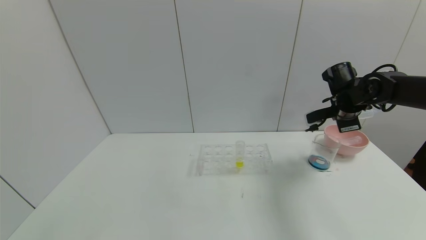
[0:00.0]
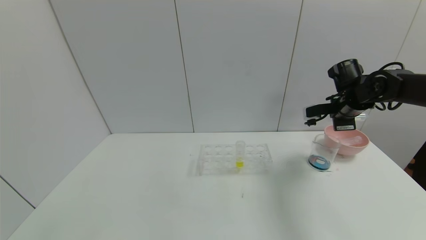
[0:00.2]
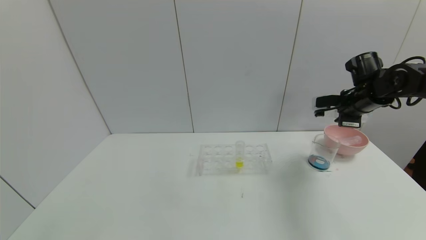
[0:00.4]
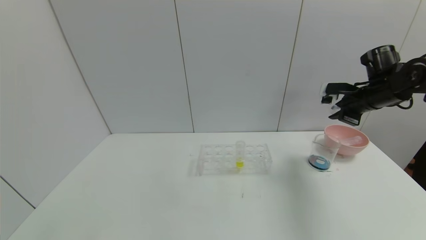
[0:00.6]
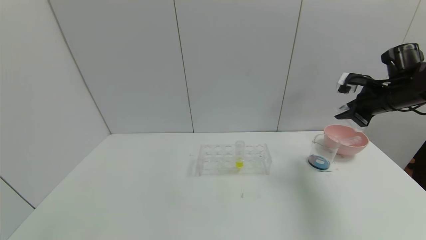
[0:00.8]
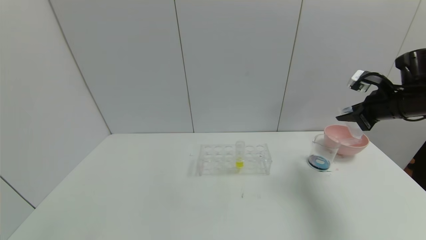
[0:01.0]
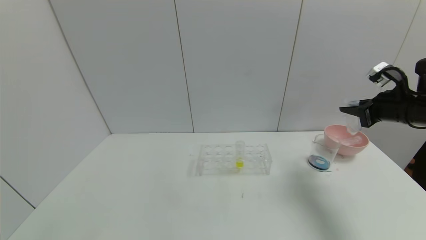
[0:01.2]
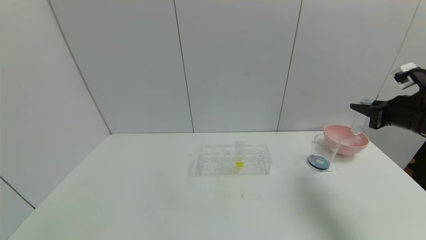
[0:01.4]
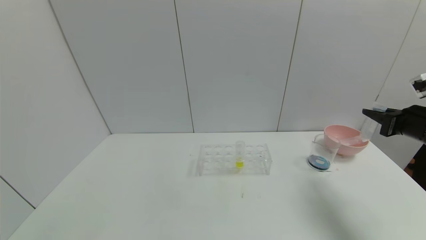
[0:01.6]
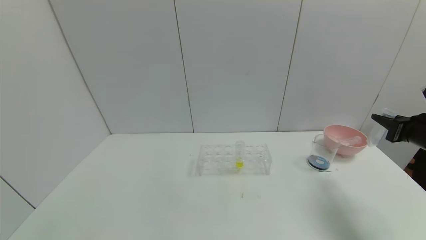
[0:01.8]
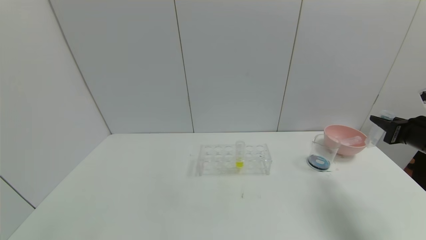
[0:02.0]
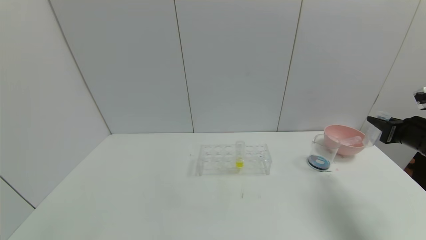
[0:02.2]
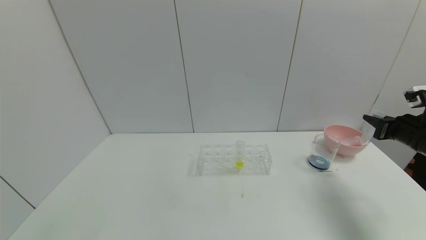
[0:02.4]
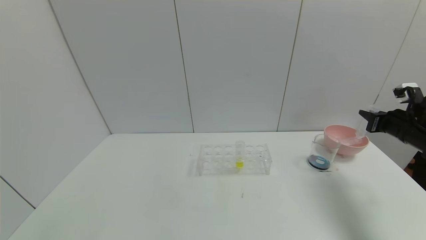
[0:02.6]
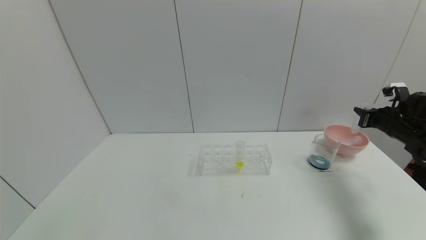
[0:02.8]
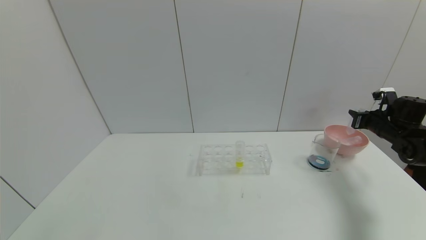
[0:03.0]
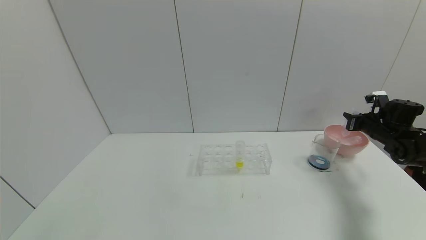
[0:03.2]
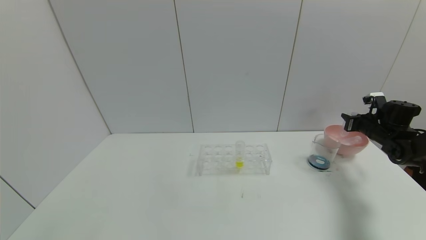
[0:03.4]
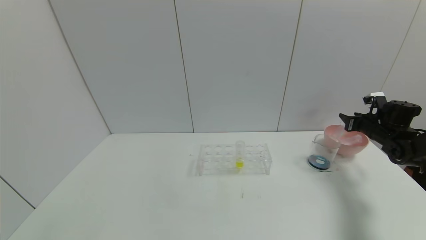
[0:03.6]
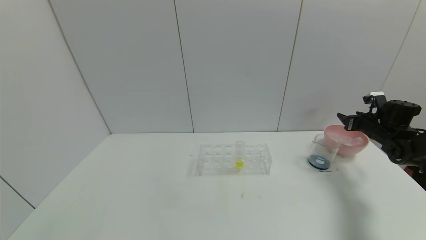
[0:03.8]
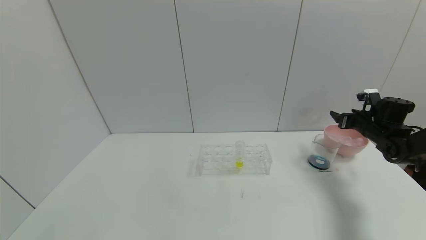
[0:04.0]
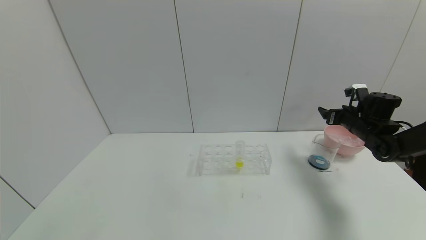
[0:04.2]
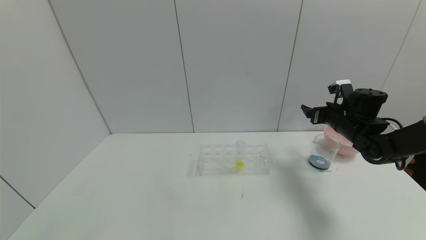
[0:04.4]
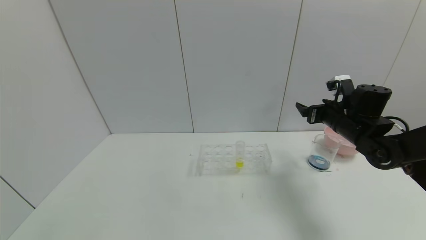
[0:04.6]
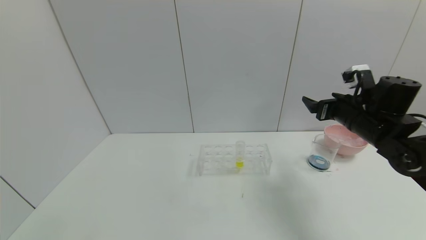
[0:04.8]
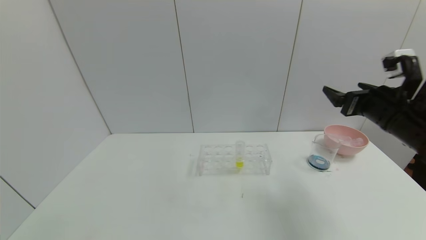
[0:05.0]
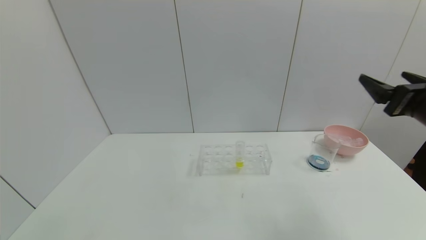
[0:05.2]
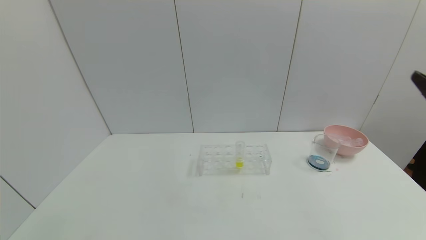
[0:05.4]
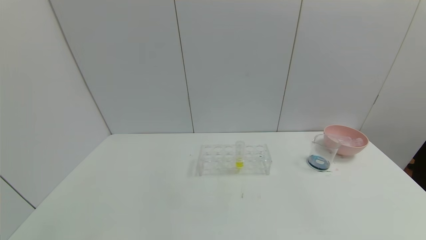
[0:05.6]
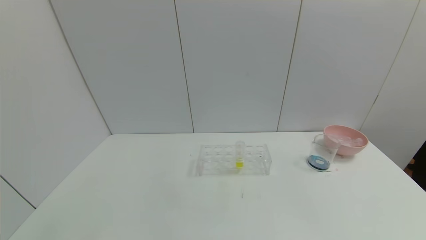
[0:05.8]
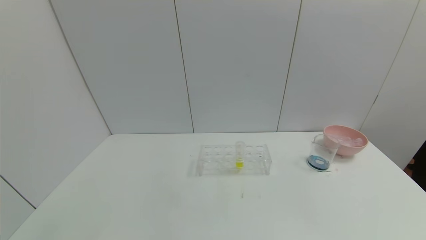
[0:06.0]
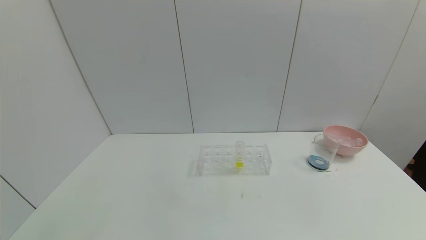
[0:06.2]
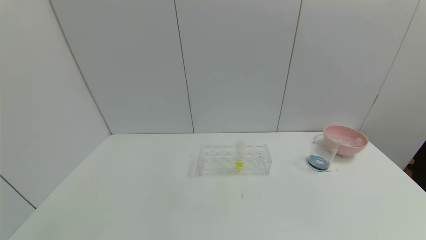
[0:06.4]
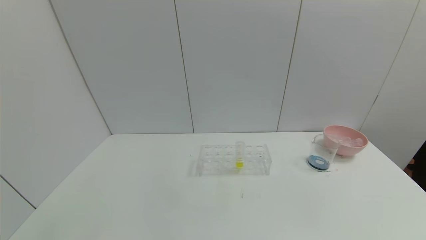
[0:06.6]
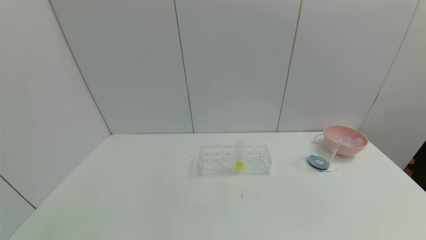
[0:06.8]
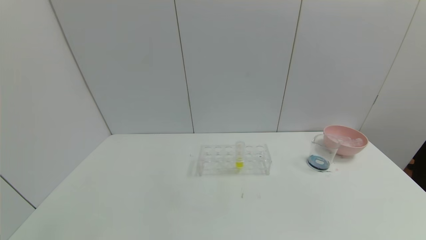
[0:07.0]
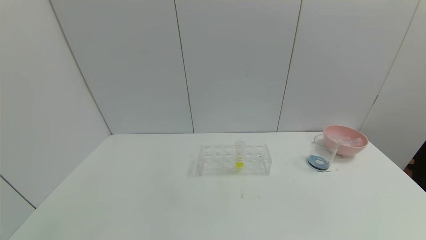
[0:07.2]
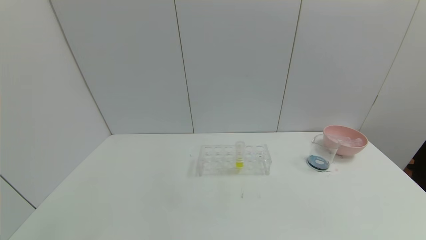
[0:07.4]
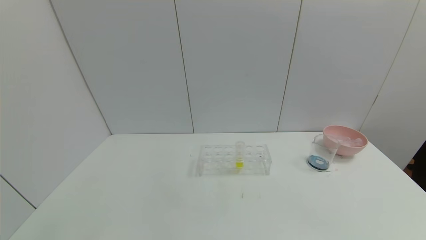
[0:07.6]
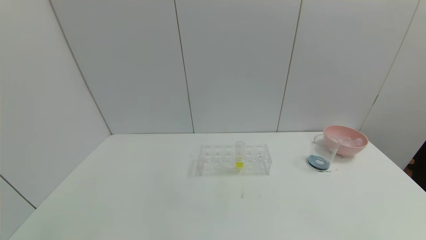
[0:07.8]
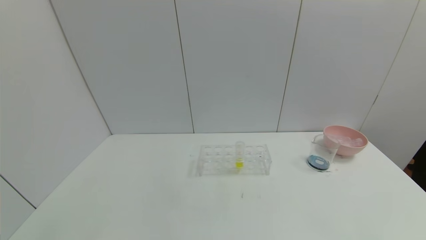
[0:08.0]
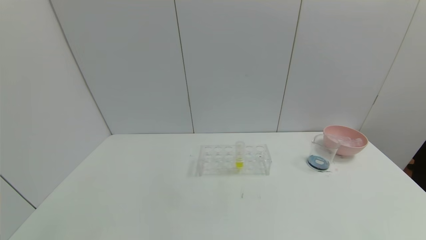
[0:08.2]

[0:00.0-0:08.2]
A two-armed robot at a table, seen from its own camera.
Task of the whole recording: pick up the test tube with red pigment and the test tube with blue pigment by grippers and pour them into the container.
Step, 0:00.0 to 0:04.0: Place the test tube into the bowl with the right gripper.
0:00.0 to 0:01.6: The right gripper goes some 20 cm backward and to the right.
0:01.6 to 0:03.2: The right gripper is displaced forward and downward by about 15 cm.
0:03.2 to 0:05.0: The right gripper is displaced to the left, backward and upward by some 25 cm, and opens.
0:05.0 to 0:06.6: The right gripper moves backward, about 35 cm.
